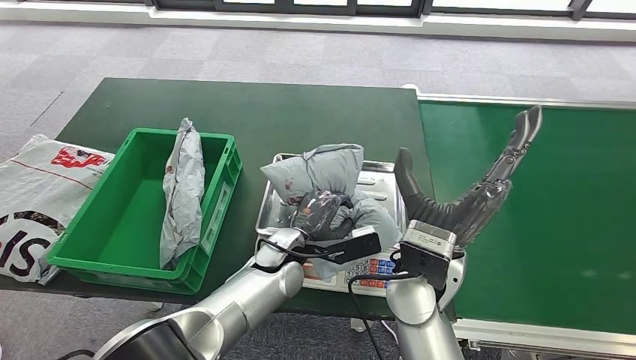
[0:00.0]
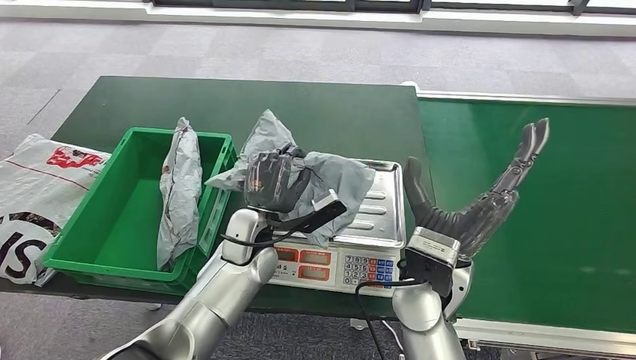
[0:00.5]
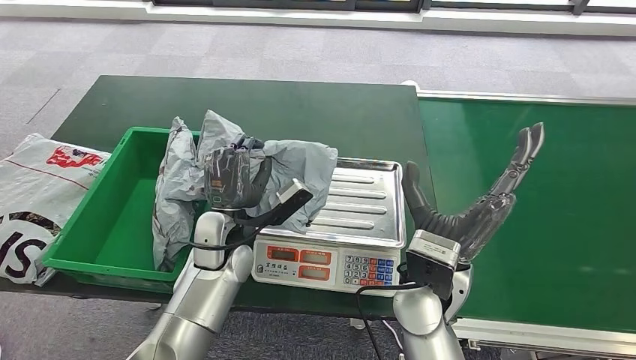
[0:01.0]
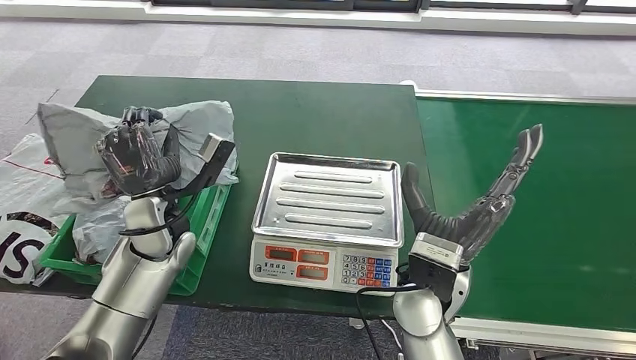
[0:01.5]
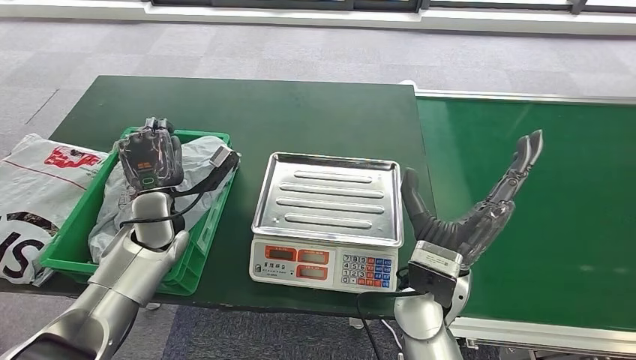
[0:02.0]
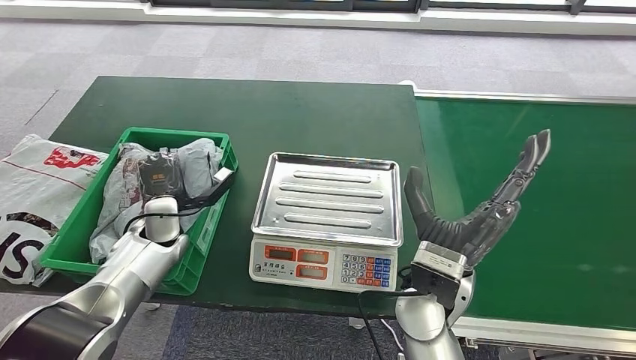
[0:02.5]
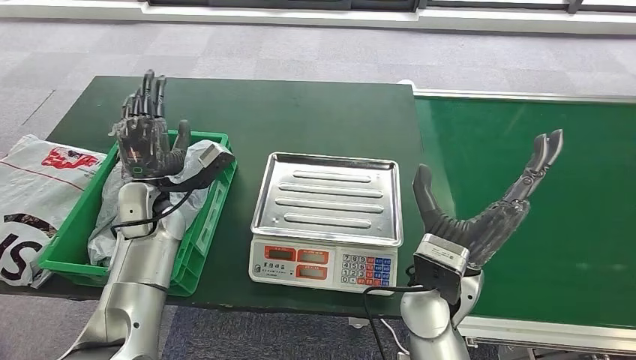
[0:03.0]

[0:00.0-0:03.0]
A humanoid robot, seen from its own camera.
Step, 0:01.0 to 0:03.0: Place the package into the parcel locker.
